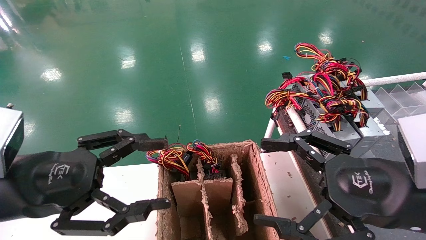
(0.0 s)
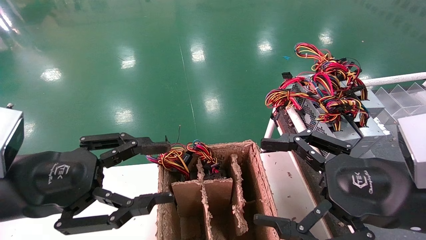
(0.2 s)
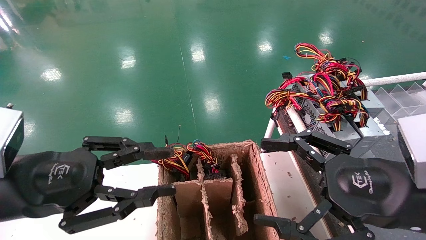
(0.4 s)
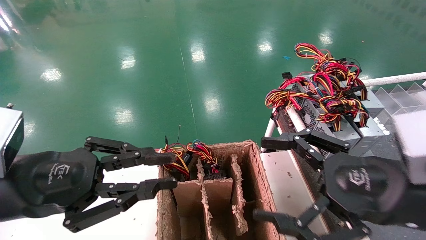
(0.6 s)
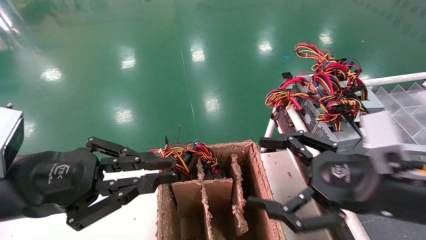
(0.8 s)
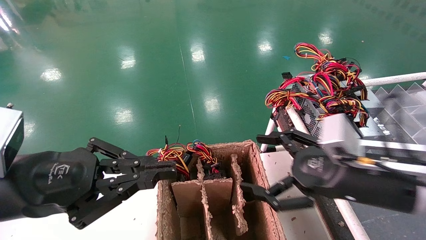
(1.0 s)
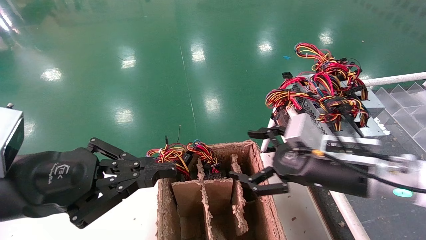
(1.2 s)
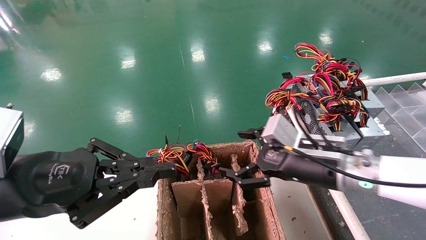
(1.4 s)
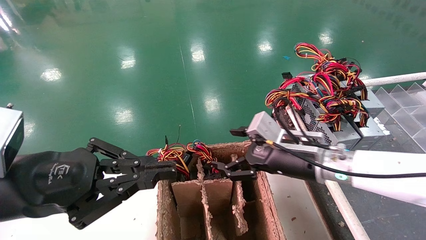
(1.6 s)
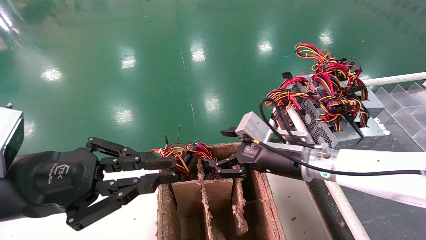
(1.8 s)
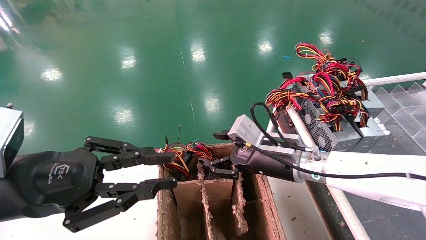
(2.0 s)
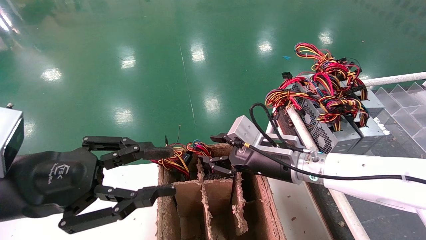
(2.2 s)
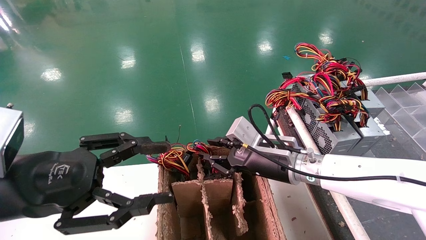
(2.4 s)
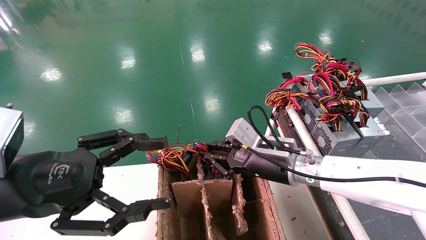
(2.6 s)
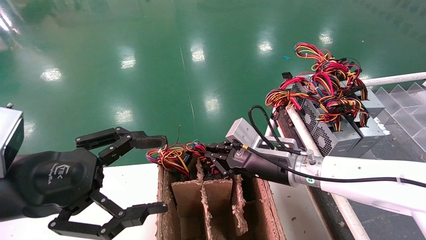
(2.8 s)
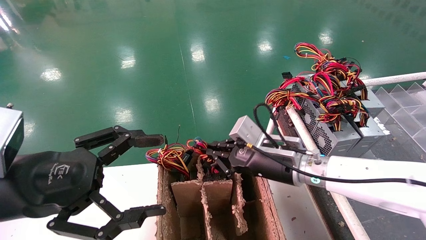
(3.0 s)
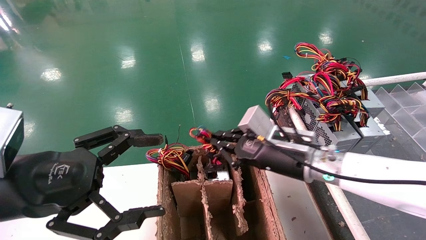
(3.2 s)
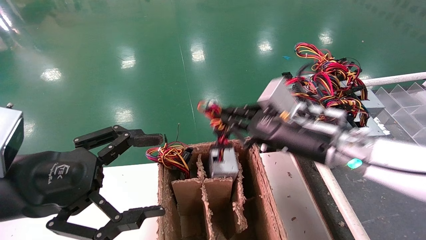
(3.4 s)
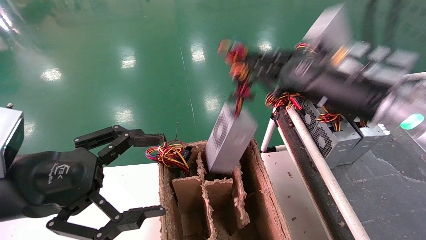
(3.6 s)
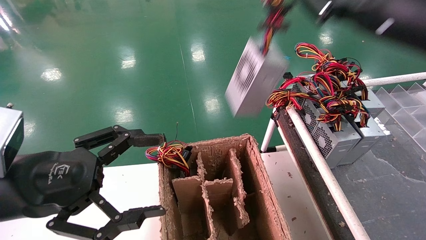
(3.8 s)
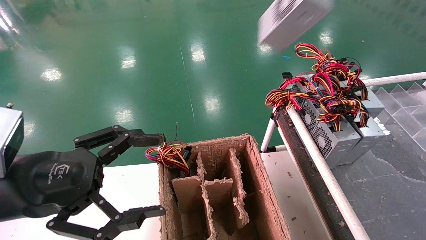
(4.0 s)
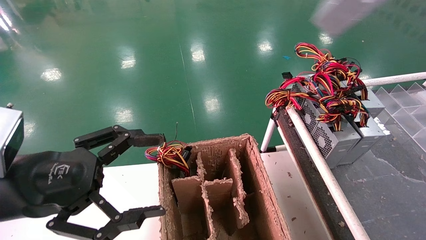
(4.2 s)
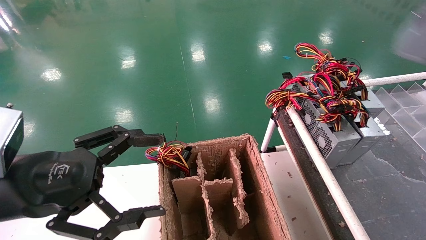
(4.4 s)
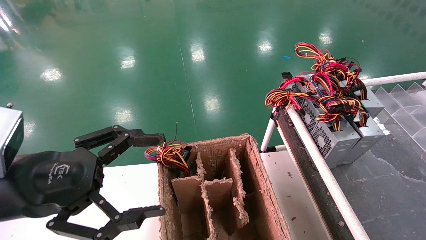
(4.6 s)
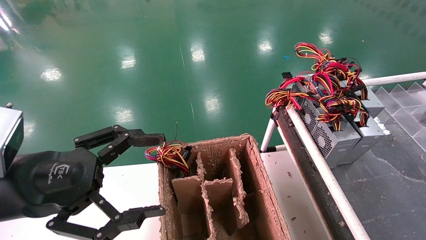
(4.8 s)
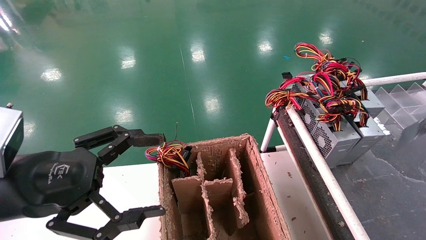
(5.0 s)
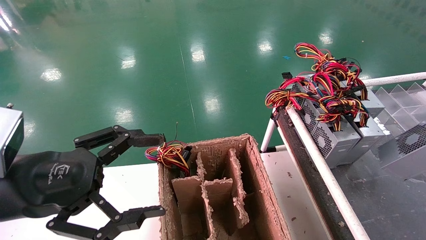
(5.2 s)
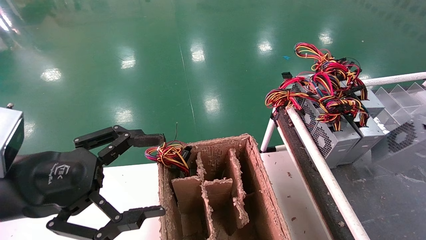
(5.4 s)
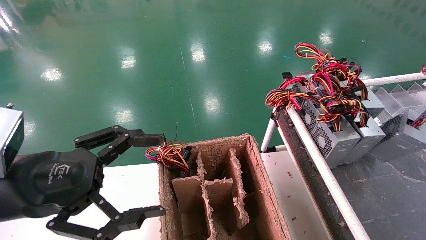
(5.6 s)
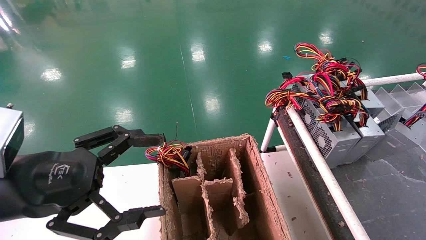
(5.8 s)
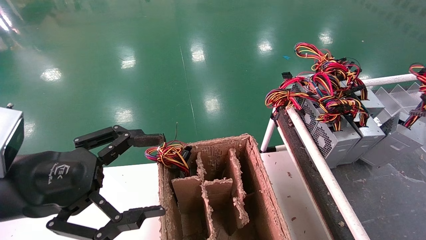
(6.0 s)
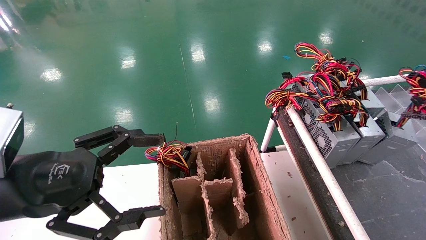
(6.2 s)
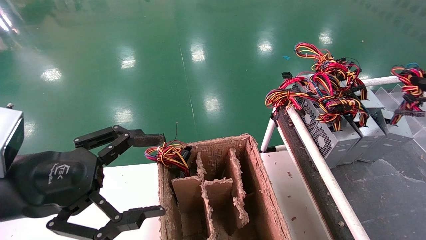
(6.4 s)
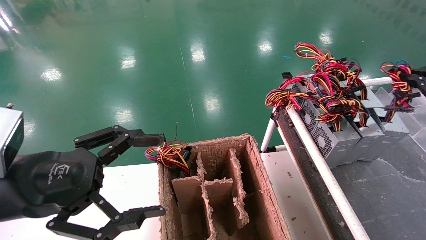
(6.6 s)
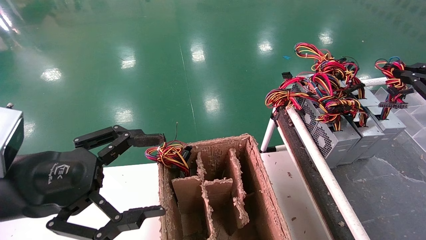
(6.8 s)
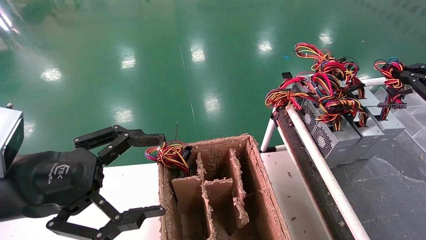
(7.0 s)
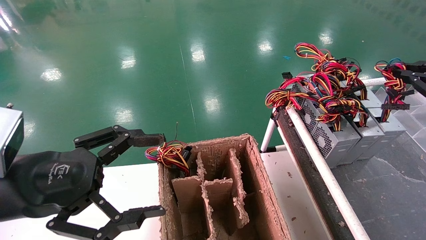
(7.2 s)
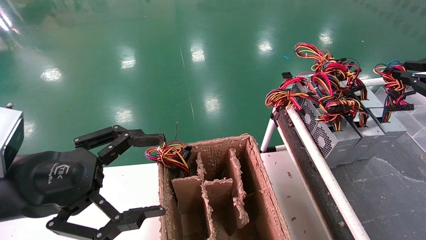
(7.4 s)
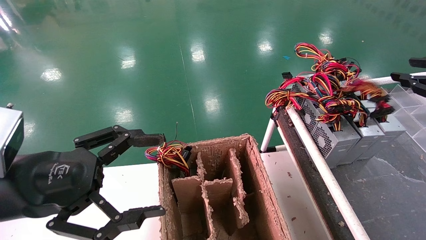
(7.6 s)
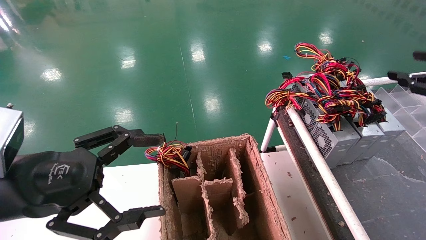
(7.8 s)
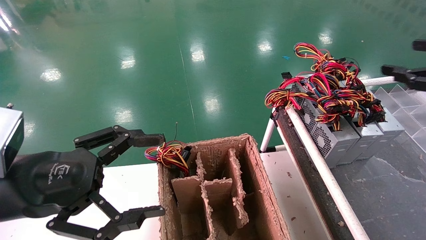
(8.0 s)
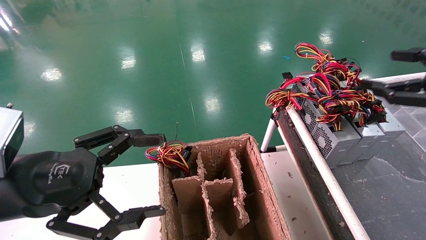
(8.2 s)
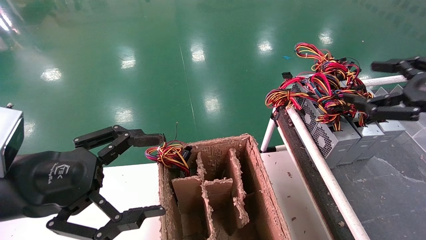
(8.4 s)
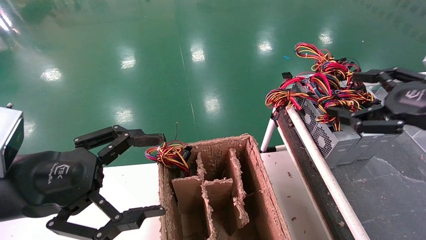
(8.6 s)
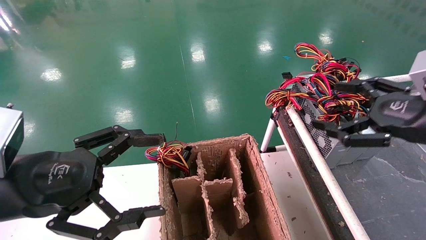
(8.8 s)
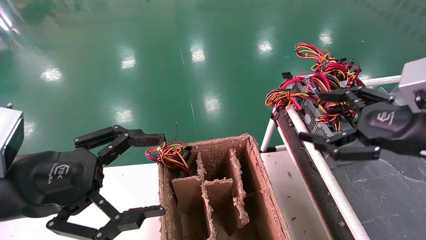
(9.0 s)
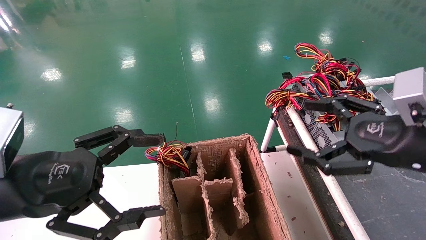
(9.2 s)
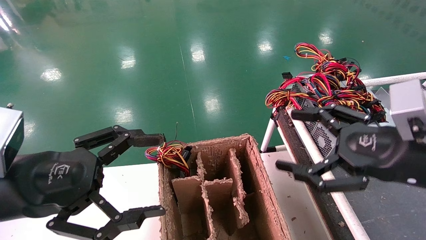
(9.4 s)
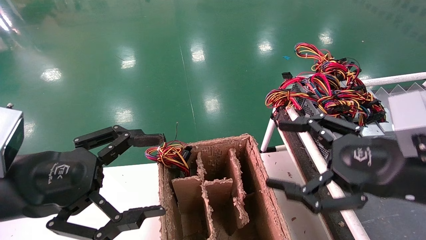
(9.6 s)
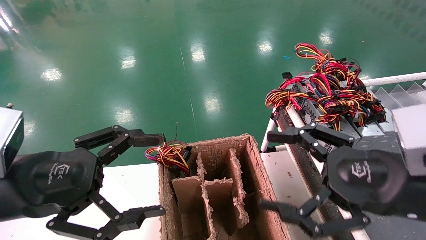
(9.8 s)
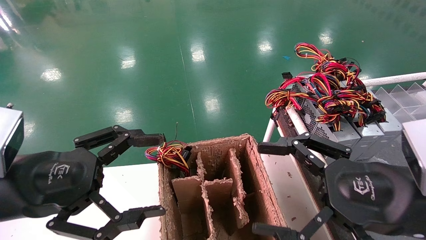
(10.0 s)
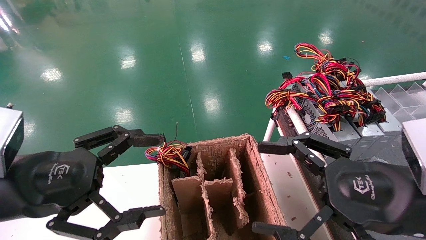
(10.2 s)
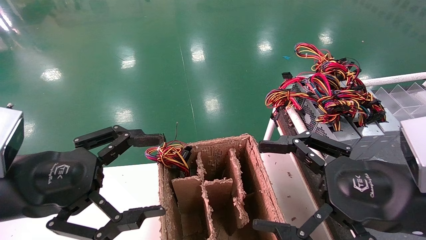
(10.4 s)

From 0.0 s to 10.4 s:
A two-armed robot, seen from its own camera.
Step, from 1.0 s to 3.4 s: Grab and lift the power supply from the large box.
Step, from 3.6 s to 7.8 s: Place the power supply on the operating table.
From 0.0 s to 1.4 s: The right gripper moves forward and to the left, approximately 15 cm. Meanwhile the left gripper closes.
From 1.4 s to 3.0 s: The left gripper opens its fingers. The right gripper changes place by about 5 cm, and closes its fingers.
From 3.0 s to 4.4 s: The right gripper is displaced to the right, upward and backward by some 40 cm.
From 4.4 s to 6.0 s: The right gripper travels downward by roughly 15 cm.
From 6.0 s to 7.4 s: The right gripper moves approximately 5 cm.
From 7.4 s to 9.0 s: The right gripper heads to the left and downward, covering about 15 cm, and opens.
From 9.0 s to 10.4 s: The right gripper shifts about 10 cm to the left and backward.
